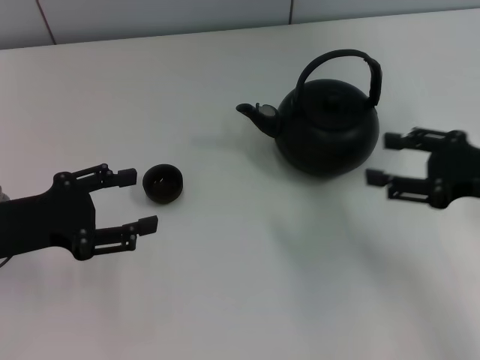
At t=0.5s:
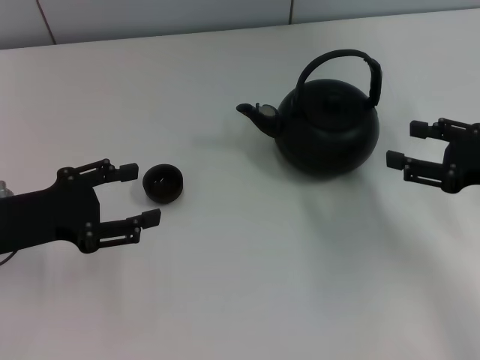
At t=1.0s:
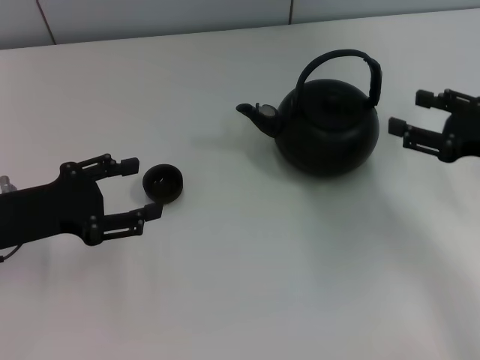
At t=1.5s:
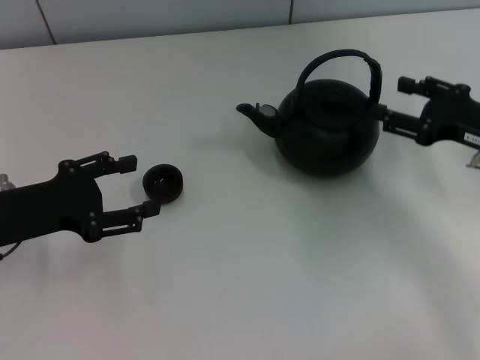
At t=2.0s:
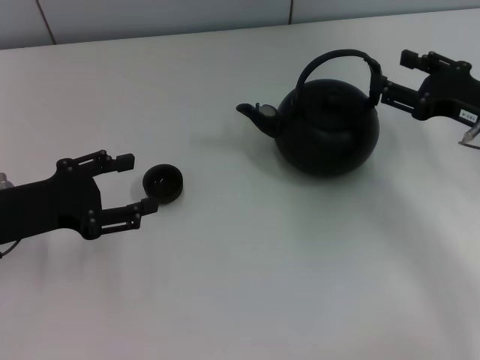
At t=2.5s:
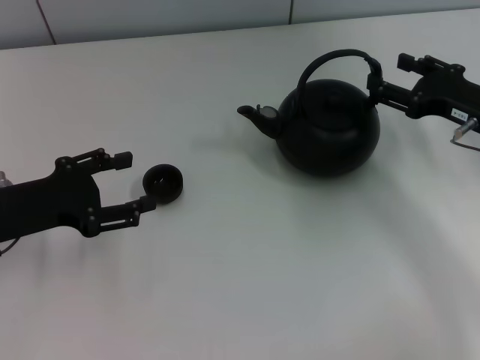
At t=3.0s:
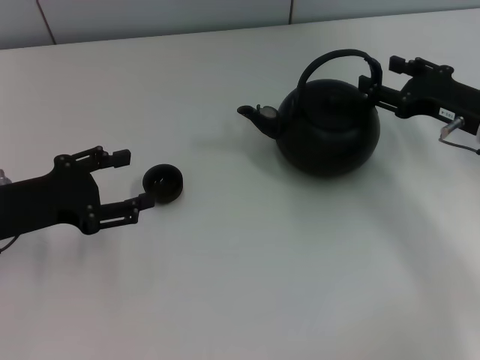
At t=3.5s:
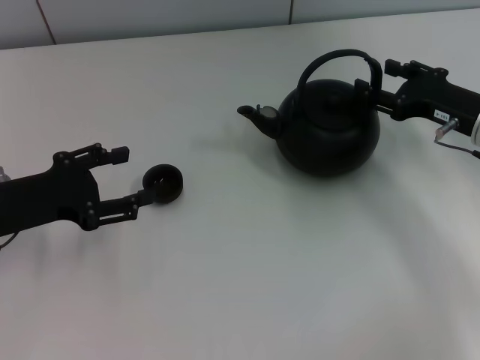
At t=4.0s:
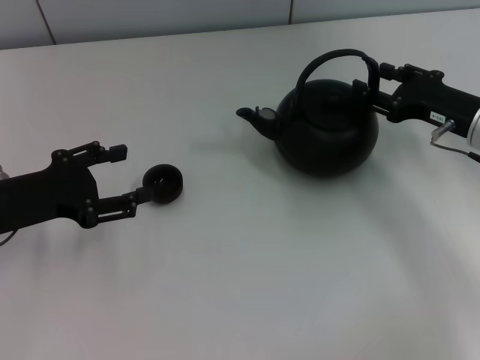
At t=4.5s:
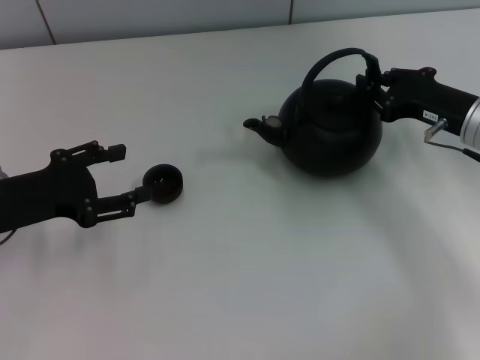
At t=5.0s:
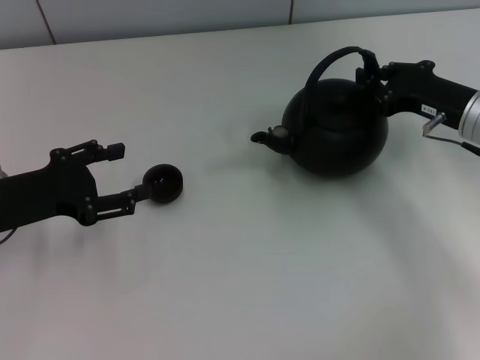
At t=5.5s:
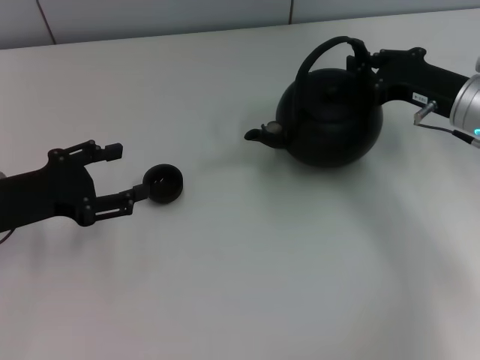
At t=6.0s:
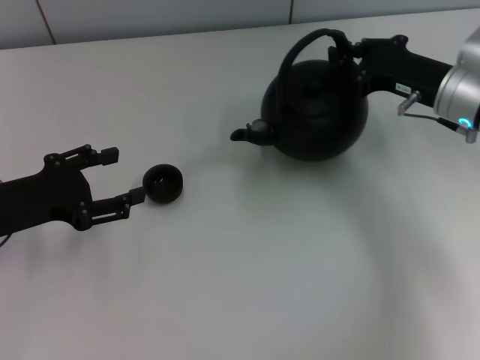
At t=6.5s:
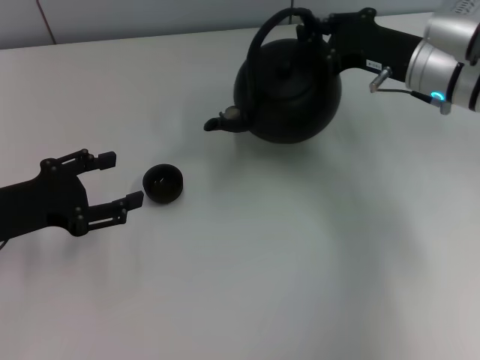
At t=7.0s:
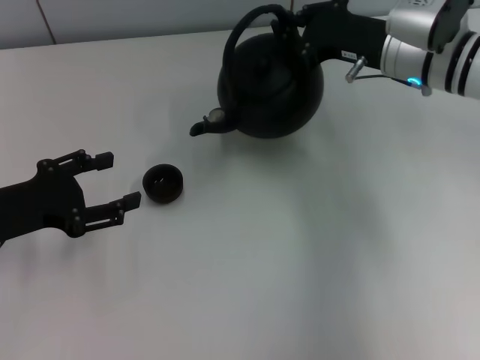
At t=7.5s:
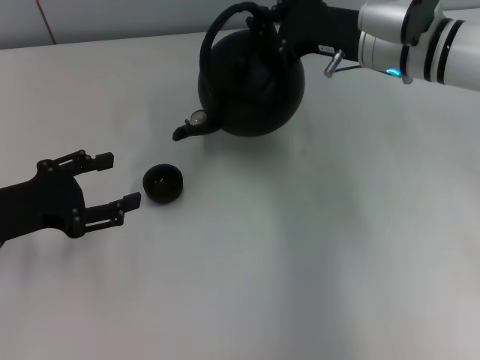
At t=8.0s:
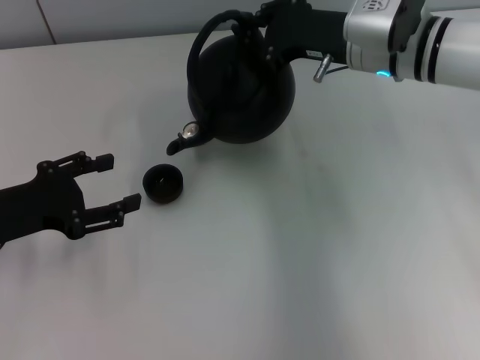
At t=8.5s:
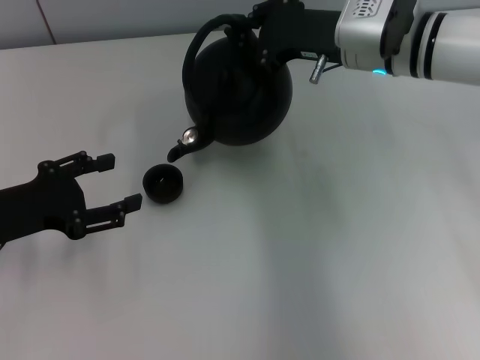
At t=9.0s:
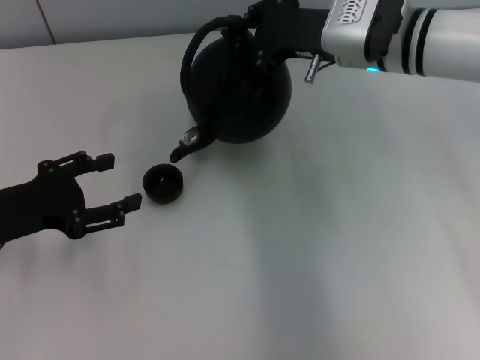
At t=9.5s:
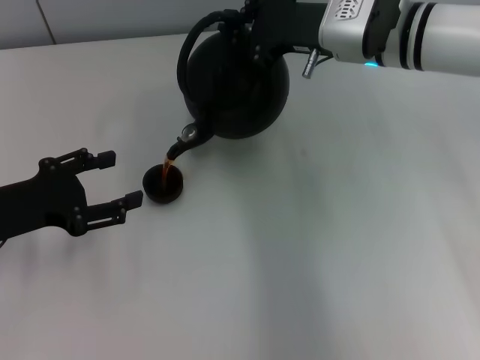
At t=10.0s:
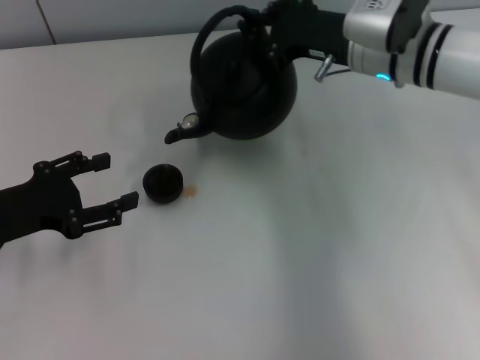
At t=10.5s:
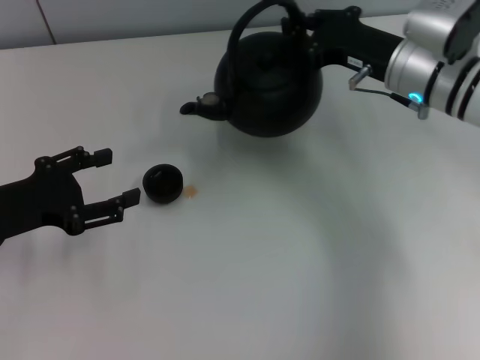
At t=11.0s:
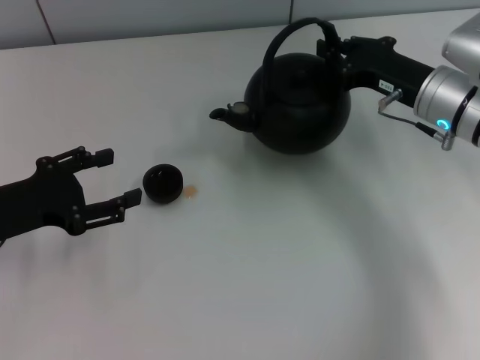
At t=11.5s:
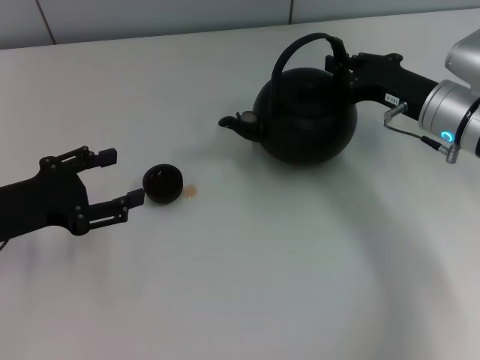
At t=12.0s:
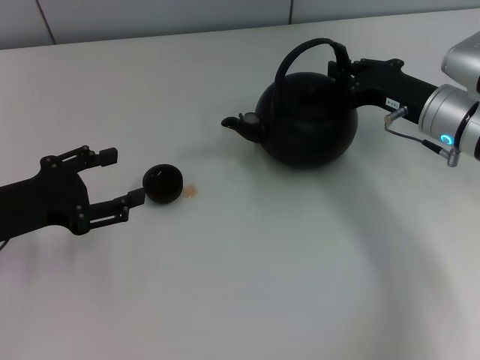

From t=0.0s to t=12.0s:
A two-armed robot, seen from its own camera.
Task of the whole recording: Grasp the handle of the teapot with one hand and pour tea into the teacup.
Step, from t=0.0s to t=6.0s: Pick up the teapot with the right gripper.
From t=0.0s to t=2.0s: The right gripper travels forward by approximately 5 cm.
From t=2.0s to t=4.0s: The grippers move only a little.
From t=4.0s to t=6.0s: The right gripper shifts by roughly 5 cm, and closes.
From t=6.0s to t=8.0s: The right gripper goes approximately 10 cm to the left.
From t=8.0s to t=10.0s: The grippers stay close to where they were, moving slightly.
From t=10.0s to t=12.0s: The right gripper is displaced to the right and downward by some 10 cm.

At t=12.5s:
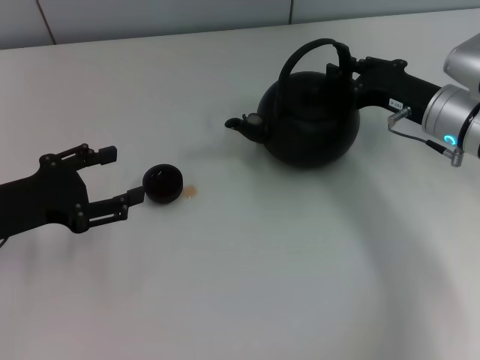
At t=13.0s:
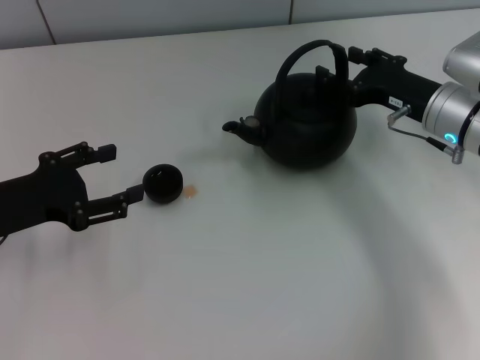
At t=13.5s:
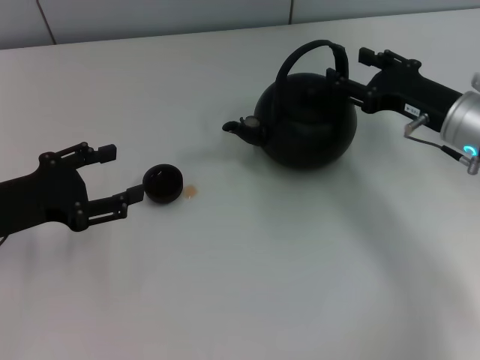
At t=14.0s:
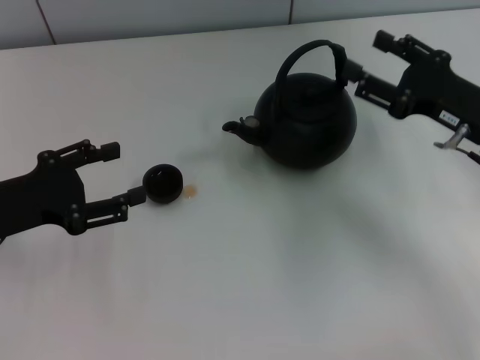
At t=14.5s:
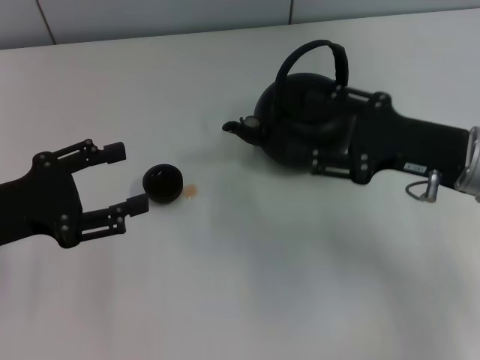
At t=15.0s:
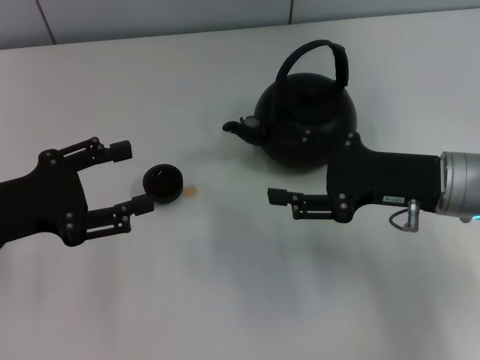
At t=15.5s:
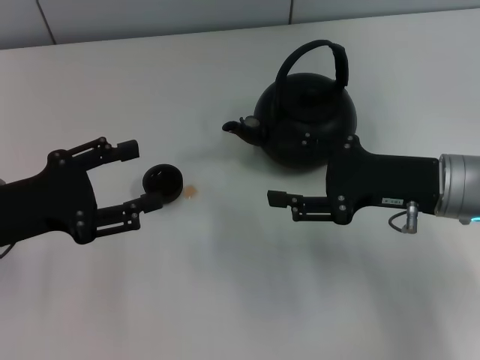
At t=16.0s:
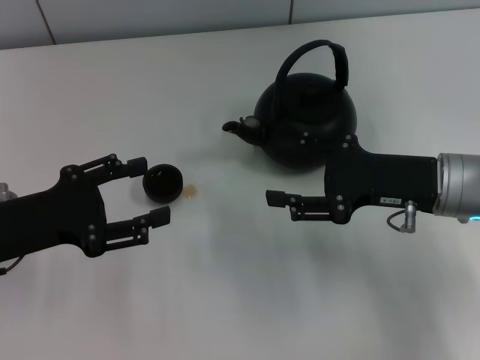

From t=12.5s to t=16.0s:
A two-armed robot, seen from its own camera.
Task of the whole recording: Grasp the handle of the teapot with one hand and pour tea into the teacup.
From t=12.5s to t=14.5s: The right gripper moves backward, roughly 5 cm, and opens.
From t=14.5s to t=16.0s: The grippers stay close to where they were, moving slightly.
